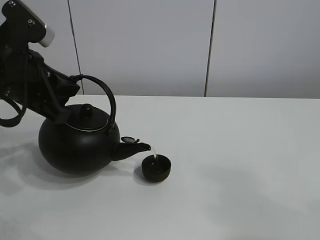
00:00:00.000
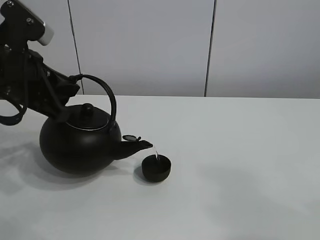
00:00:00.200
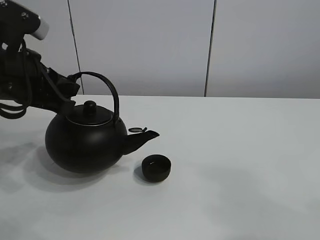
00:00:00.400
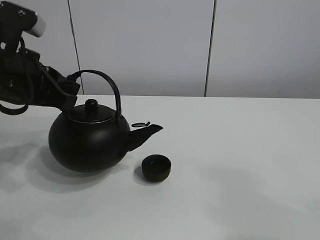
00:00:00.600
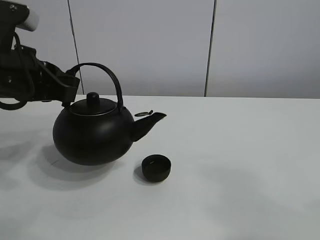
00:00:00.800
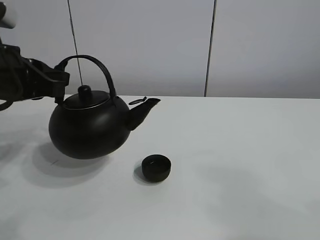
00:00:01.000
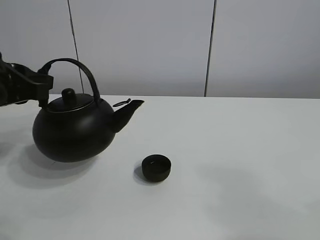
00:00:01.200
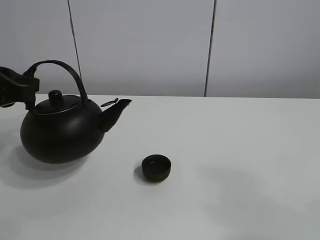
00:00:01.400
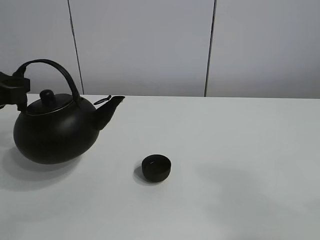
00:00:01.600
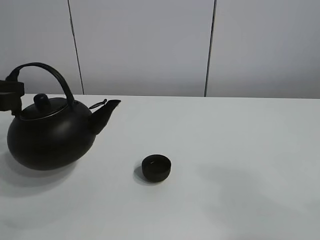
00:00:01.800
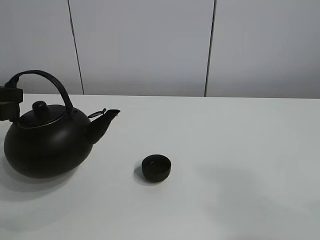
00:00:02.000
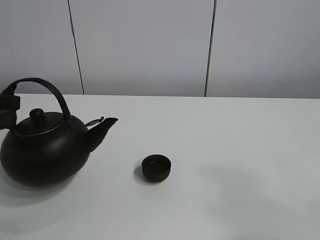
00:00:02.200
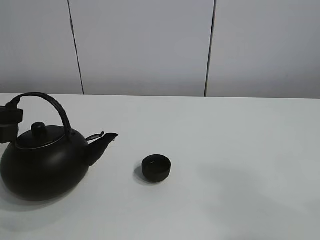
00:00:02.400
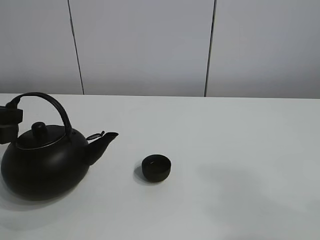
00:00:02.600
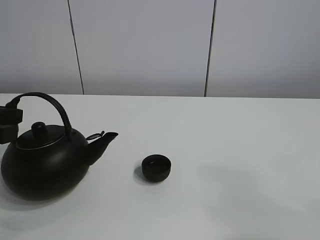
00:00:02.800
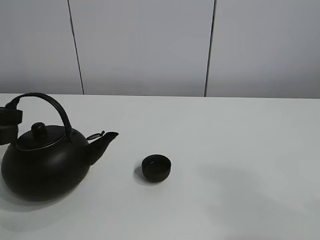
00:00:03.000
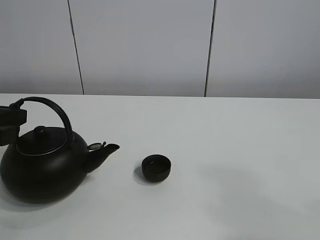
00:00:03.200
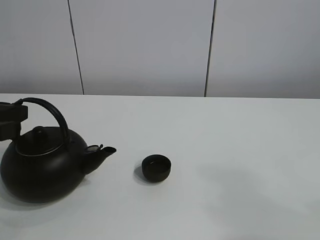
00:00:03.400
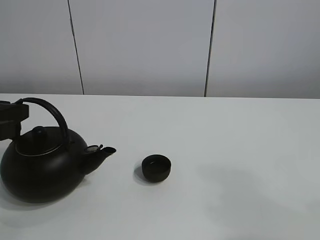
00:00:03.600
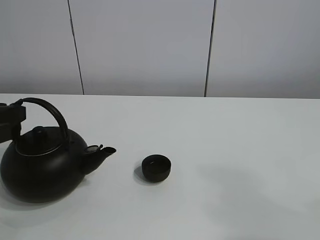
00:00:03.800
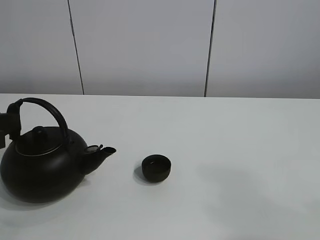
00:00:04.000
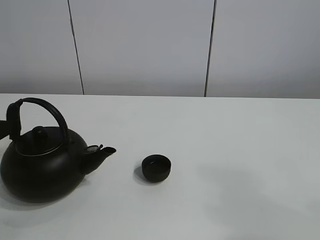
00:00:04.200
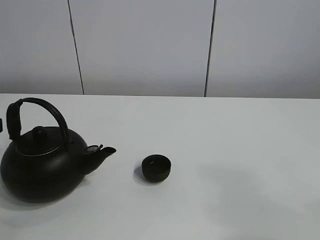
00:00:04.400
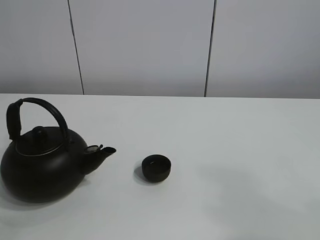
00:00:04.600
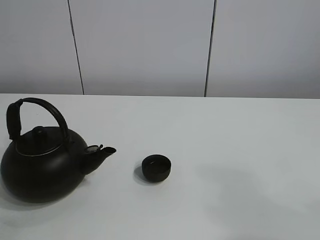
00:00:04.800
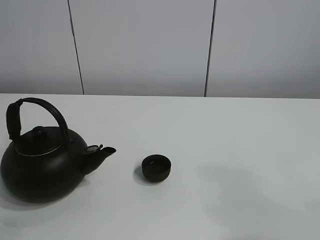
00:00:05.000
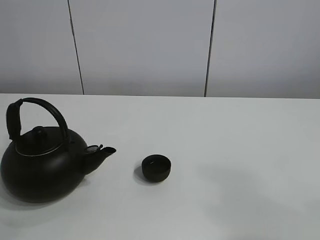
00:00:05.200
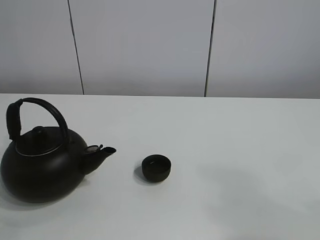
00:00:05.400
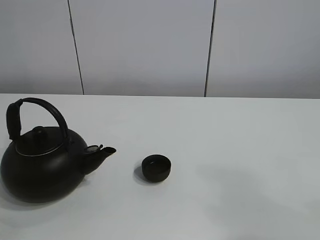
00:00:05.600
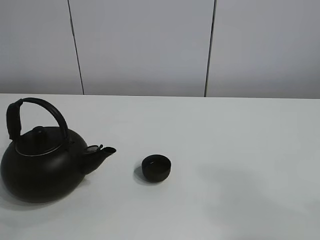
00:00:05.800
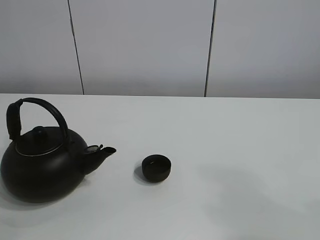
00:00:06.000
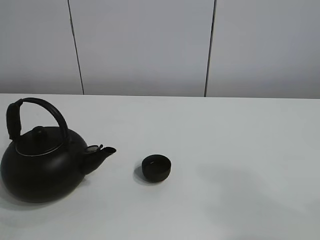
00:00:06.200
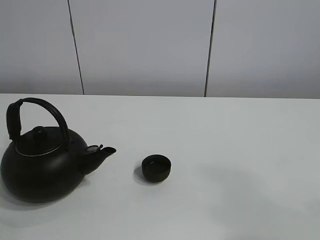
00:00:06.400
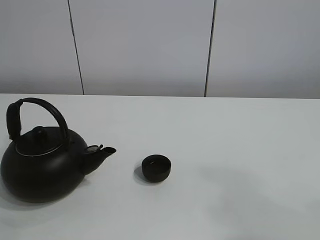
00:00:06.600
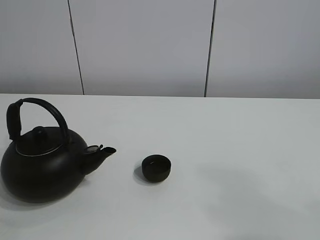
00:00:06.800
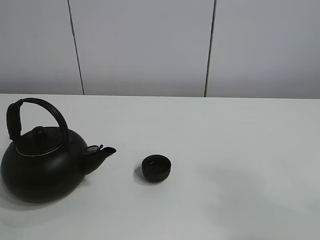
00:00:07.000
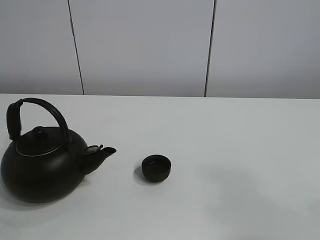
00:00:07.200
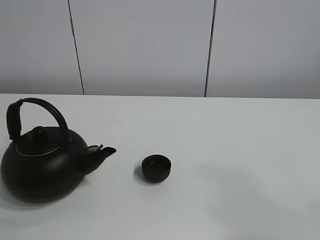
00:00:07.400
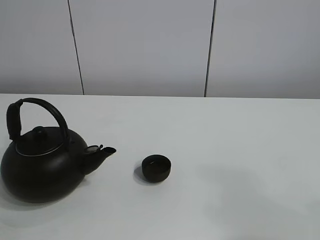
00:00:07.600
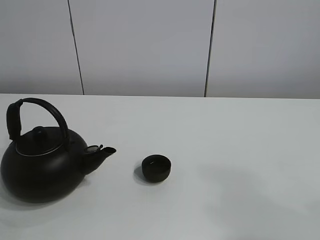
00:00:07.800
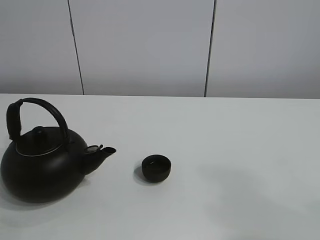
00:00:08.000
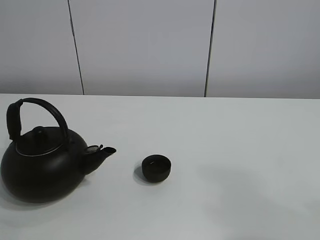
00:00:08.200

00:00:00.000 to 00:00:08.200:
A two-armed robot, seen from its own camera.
Task of the whole recording: pour tea into the teacup.
00:00:00.000 to 00:00:01.600: The left gripper travels to the left by roughly 5 cm.
00:00:01.600 to 00:00:03.200: The grippers move only a little.
00:00:03.200 to 00:00:05.000: The grippers move only a little.

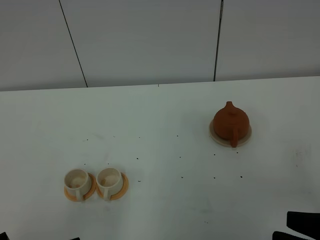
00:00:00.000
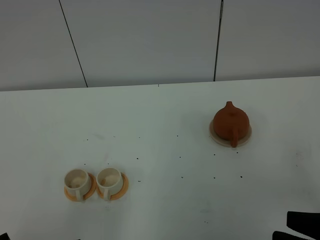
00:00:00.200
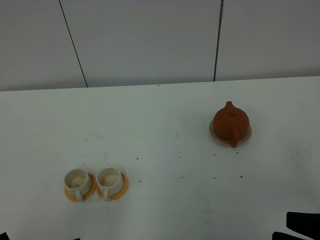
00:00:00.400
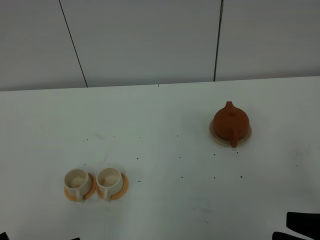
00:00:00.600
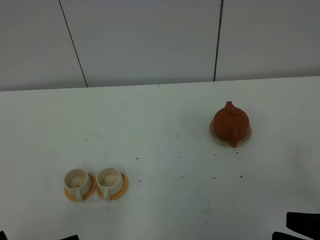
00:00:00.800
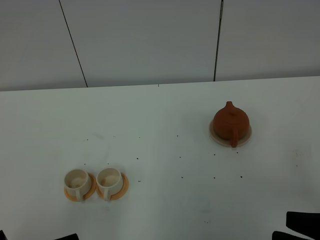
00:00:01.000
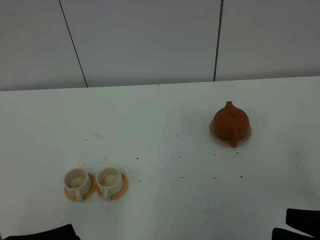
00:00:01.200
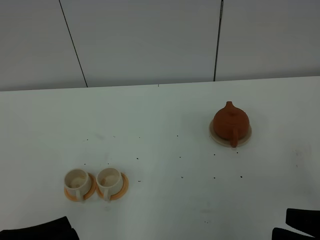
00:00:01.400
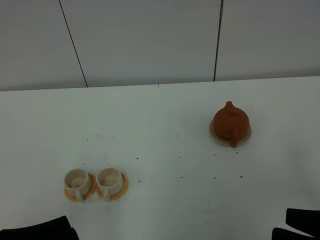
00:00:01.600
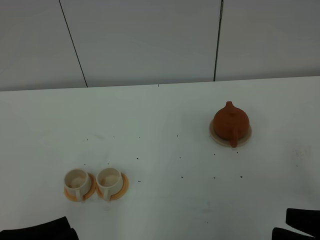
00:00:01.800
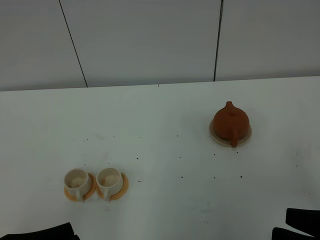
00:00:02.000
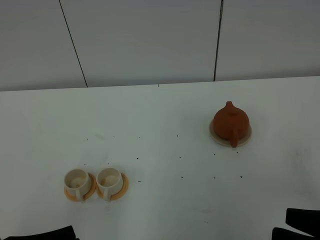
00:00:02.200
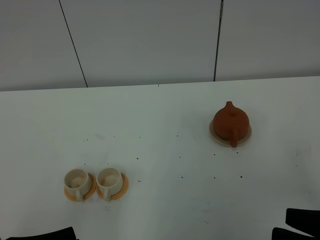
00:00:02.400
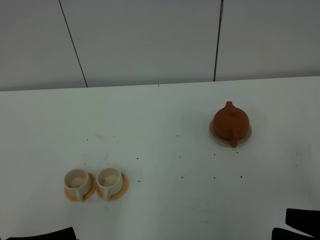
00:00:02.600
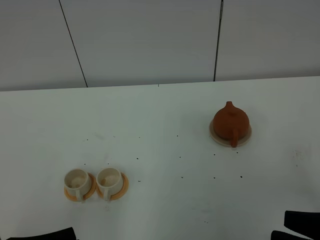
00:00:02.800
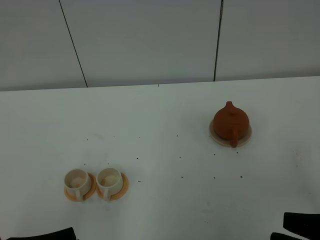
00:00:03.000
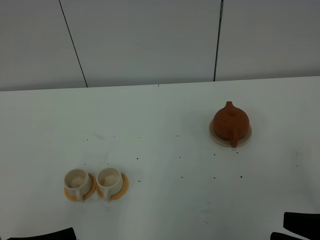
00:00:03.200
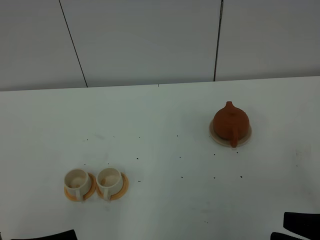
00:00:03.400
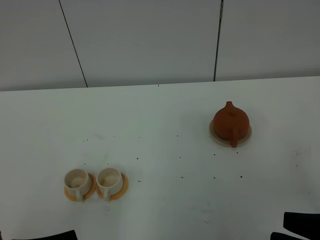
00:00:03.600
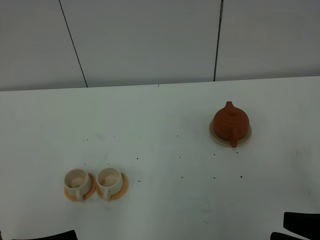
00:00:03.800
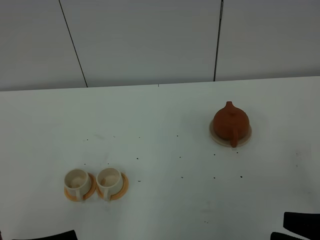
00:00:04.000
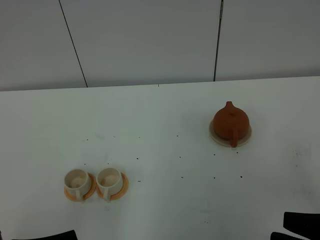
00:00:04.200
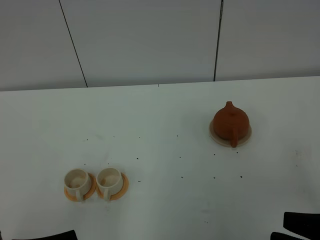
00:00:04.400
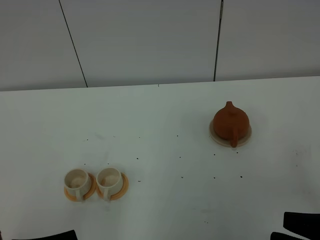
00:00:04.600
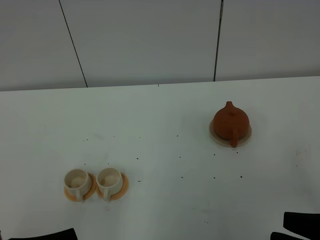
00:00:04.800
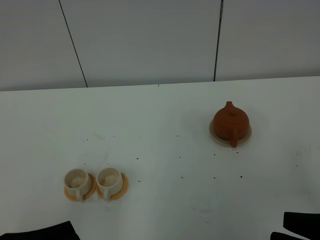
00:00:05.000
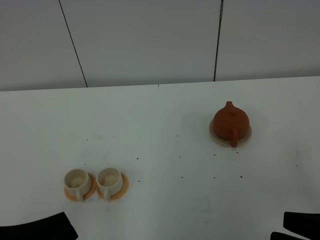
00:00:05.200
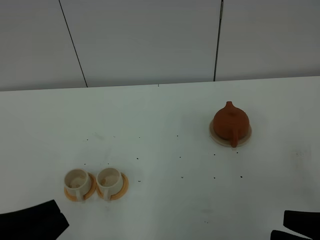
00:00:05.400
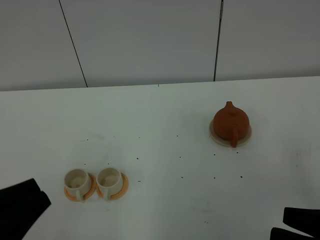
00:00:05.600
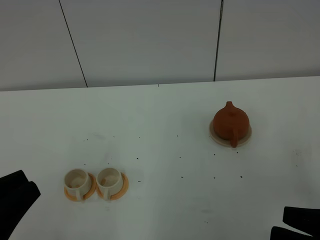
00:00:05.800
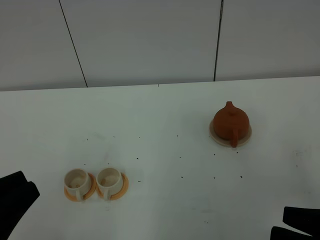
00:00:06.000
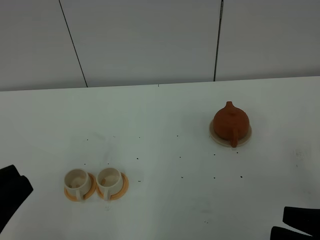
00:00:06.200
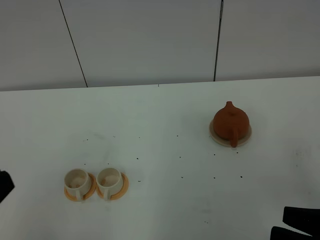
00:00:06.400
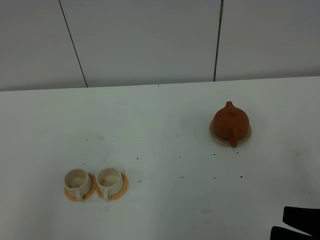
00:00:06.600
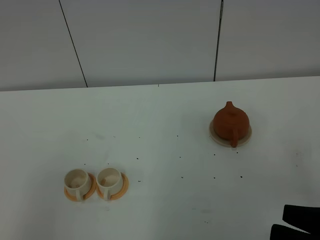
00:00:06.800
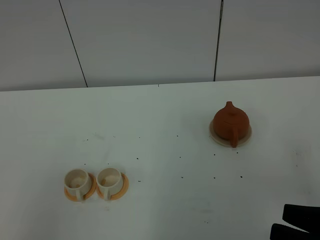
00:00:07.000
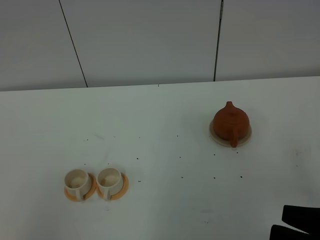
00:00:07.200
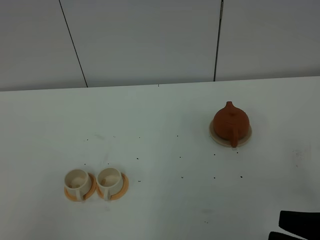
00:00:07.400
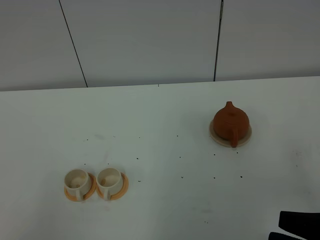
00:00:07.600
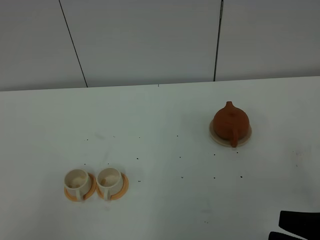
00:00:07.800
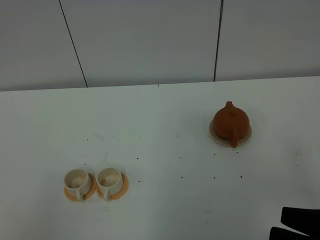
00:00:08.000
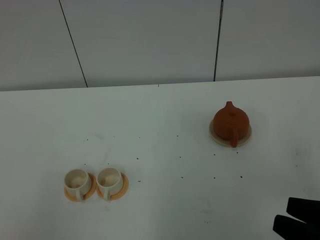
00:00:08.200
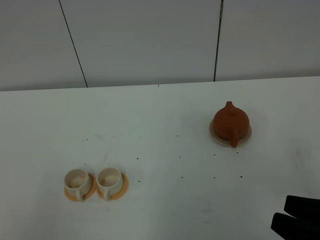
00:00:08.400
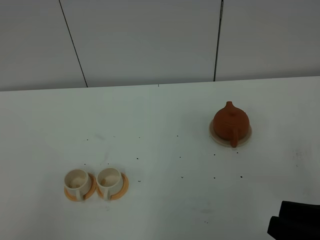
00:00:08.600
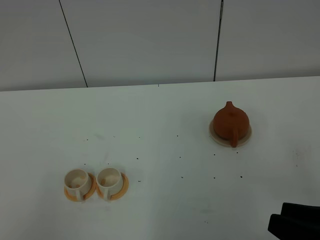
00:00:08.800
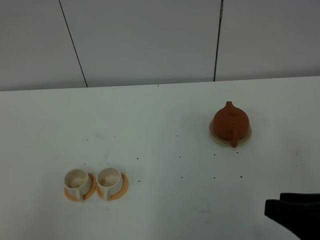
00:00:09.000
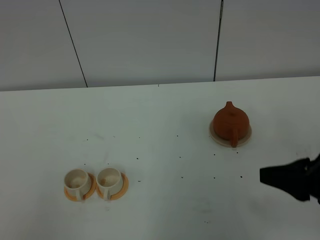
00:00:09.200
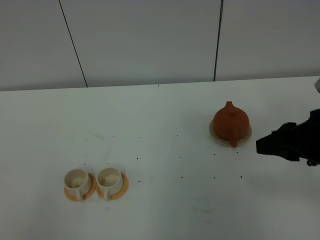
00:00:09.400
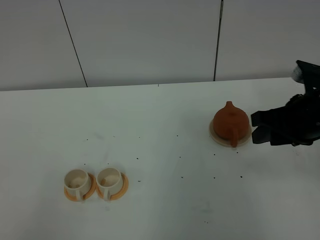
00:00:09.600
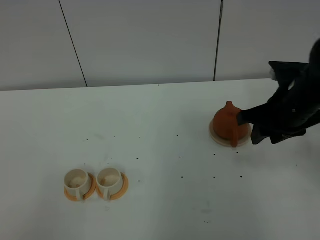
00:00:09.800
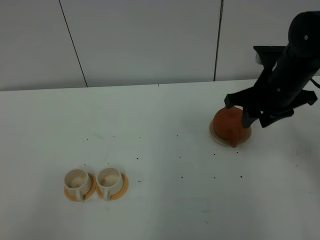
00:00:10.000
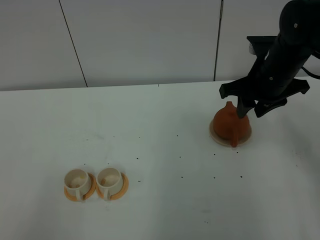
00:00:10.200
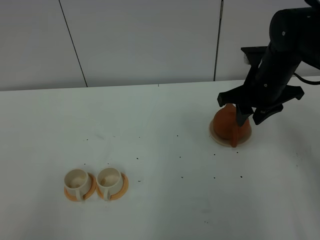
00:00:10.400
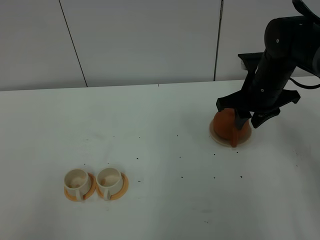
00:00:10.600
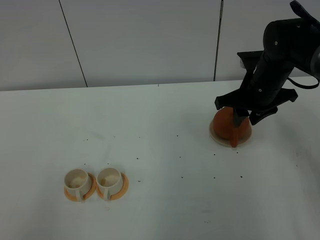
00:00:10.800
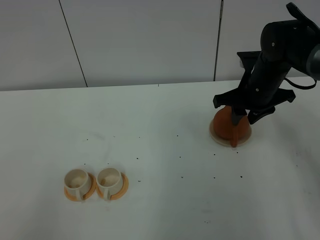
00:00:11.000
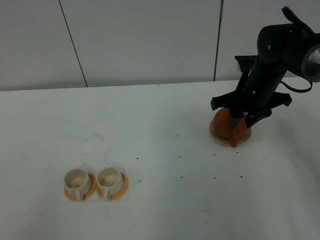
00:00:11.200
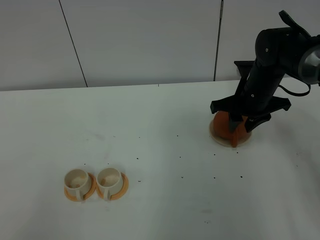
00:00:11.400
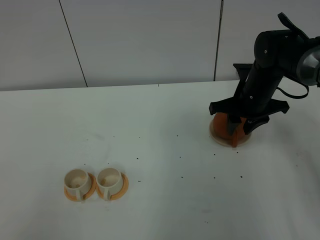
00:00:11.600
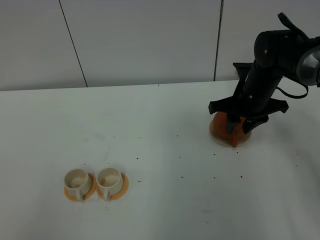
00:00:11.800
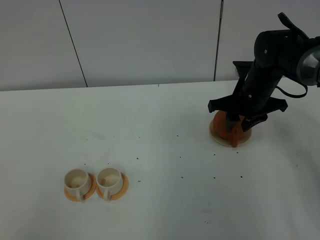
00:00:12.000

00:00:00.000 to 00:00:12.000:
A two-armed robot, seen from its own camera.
Task of the whole recording: grasp the brown teapot and pour the tea into the two white teacups one by one, put the brown teapot back in its original place.
00:00:00.000 to 00:00:01.600: The grippers stay close to where they were, moving slightly.
00:00:01.600 to 00:00:04.400: Both grippers stay about where they are.
00:00:04.400 to 00:00:06.000: The left gripper is displaced upward by about 10 cm.
00:00:06.000 to 00:00:07.600: The left gripper travels backward by approximately 10 cm, and closes.
00:00:09.000 to 00:00:10.400: The right gripper moves forward, about 30 cm.
00:00:10.400 to 00:00:12.000: The right gripper moves about 5 cm.

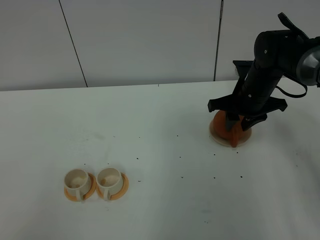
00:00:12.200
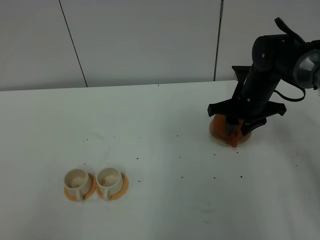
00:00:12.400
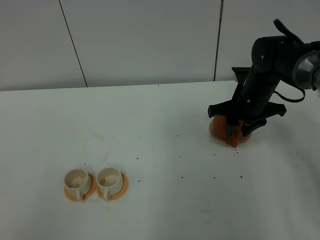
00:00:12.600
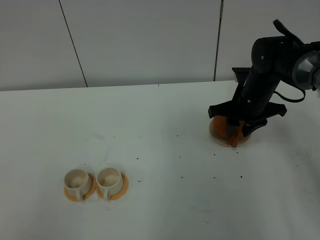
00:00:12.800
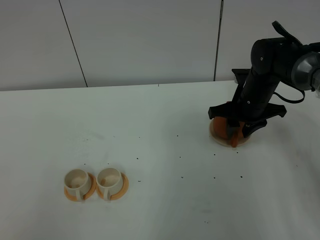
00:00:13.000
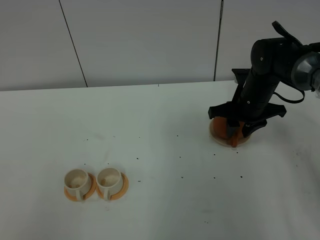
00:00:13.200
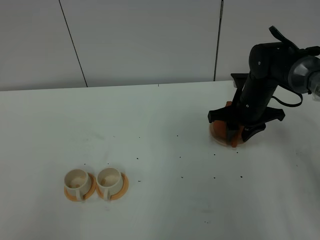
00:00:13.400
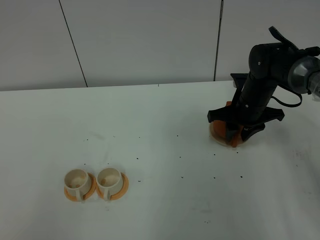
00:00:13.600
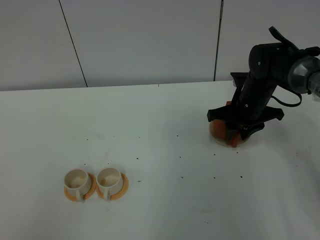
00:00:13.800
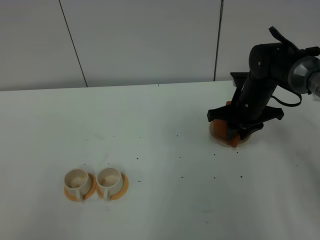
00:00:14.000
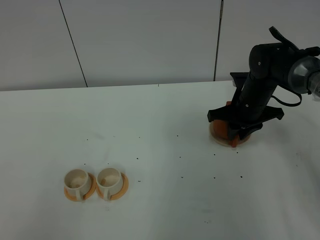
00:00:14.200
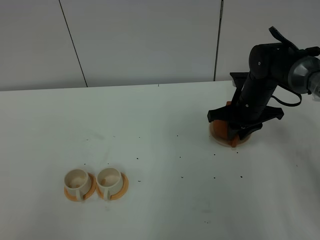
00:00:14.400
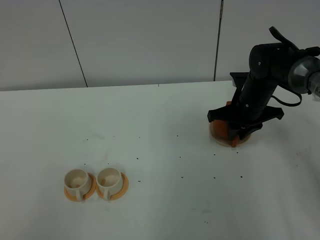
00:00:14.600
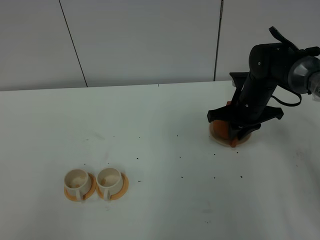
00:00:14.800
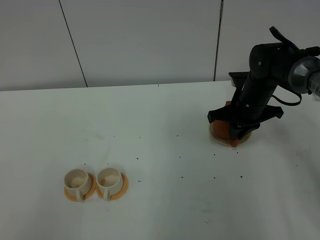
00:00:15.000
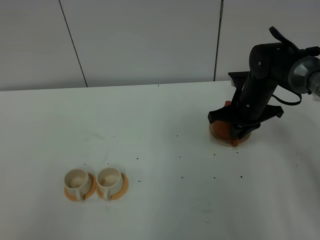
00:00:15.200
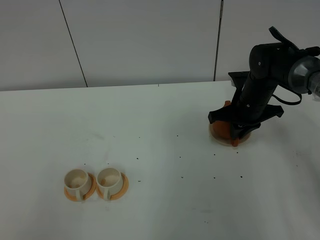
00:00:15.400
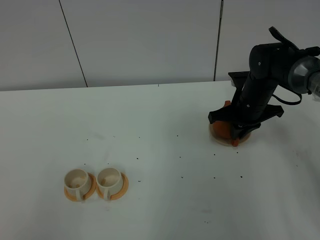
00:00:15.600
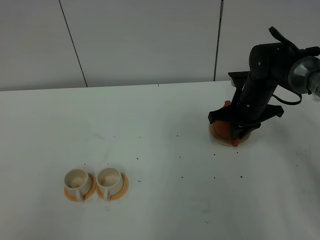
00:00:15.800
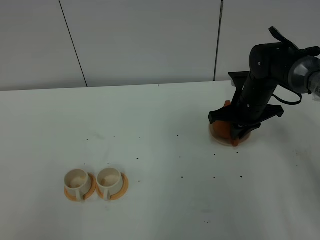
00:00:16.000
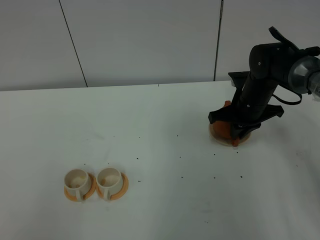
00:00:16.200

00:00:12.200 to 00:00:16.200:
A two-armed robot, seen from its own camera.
Task of the whole recording: grasp the brown teapot and pour the tea into the two white teacups one by one, put the brown teapot back in its original place.
00:00:12.200 to 00:00:13.600: The grippers move only a little.
00:00:14.800 to 00:00:16.200: The two grippers keep their place.
